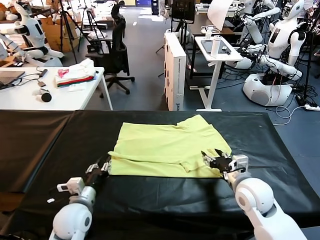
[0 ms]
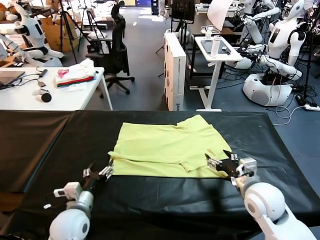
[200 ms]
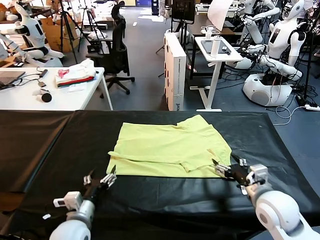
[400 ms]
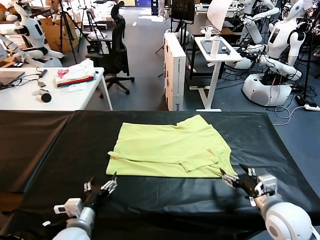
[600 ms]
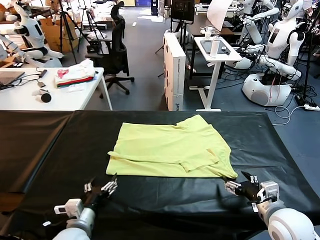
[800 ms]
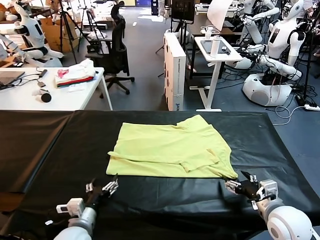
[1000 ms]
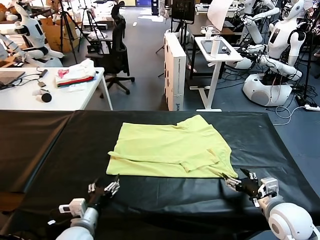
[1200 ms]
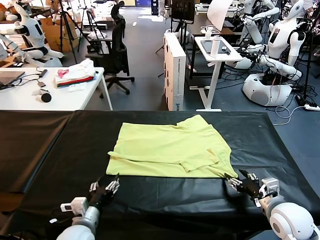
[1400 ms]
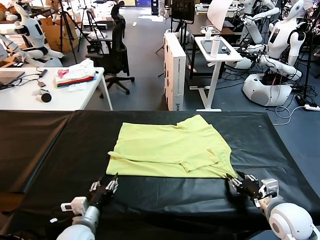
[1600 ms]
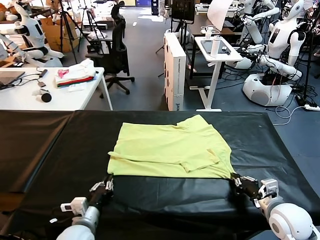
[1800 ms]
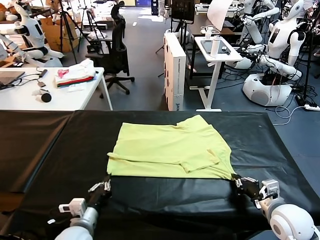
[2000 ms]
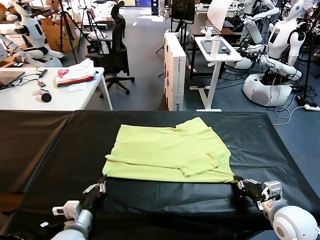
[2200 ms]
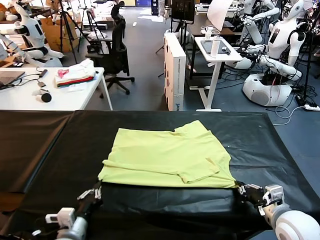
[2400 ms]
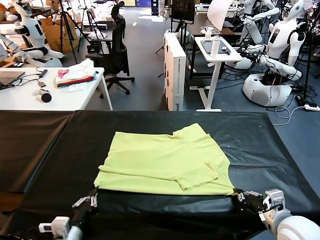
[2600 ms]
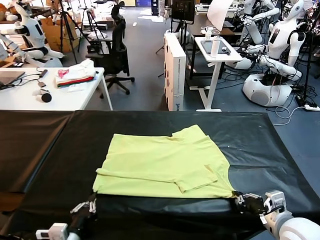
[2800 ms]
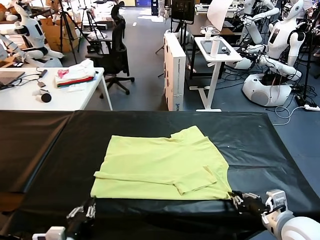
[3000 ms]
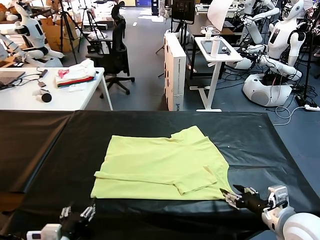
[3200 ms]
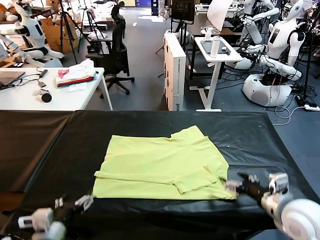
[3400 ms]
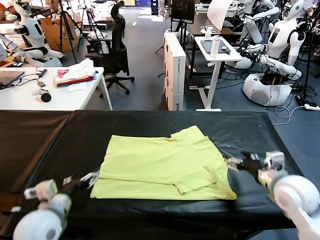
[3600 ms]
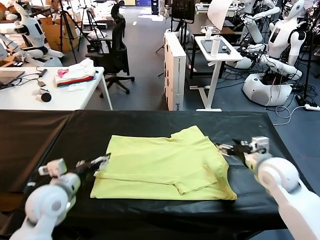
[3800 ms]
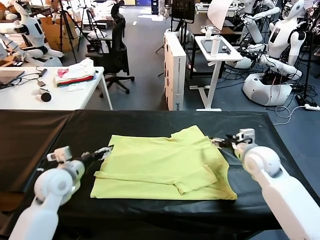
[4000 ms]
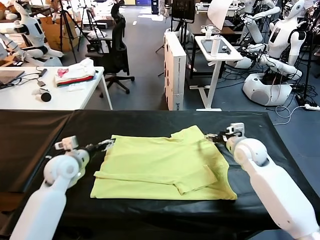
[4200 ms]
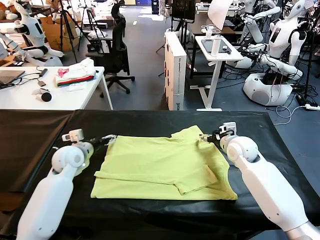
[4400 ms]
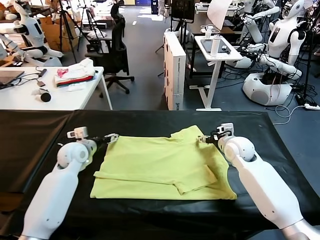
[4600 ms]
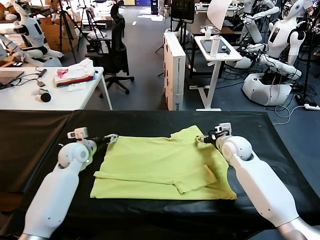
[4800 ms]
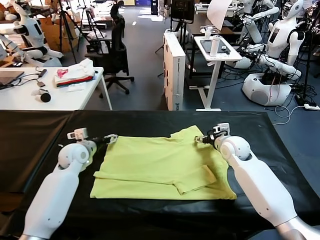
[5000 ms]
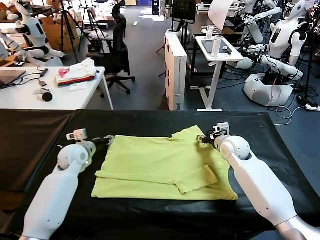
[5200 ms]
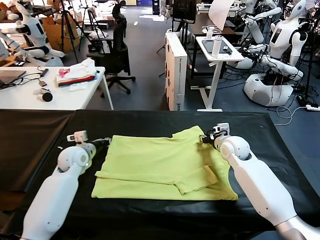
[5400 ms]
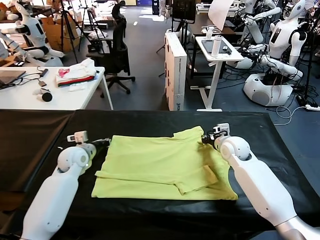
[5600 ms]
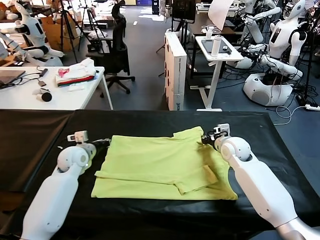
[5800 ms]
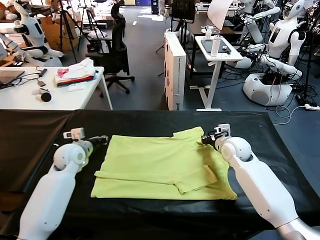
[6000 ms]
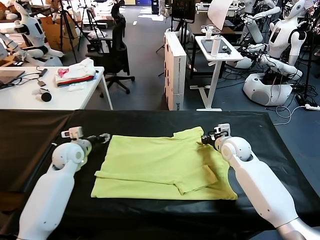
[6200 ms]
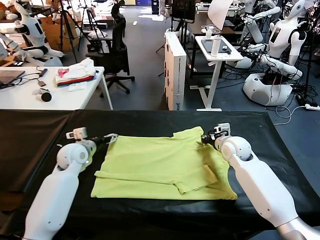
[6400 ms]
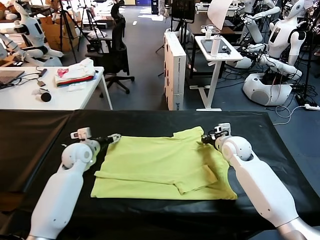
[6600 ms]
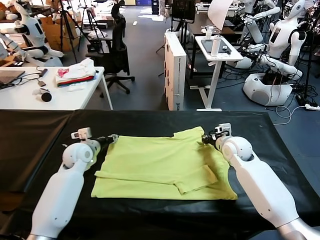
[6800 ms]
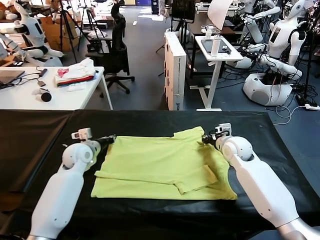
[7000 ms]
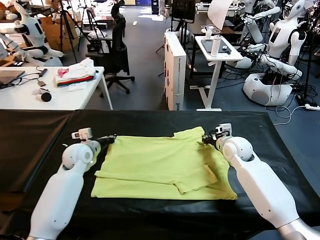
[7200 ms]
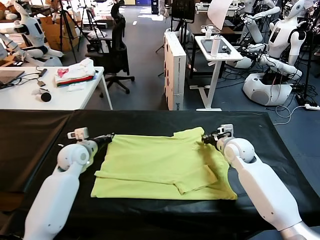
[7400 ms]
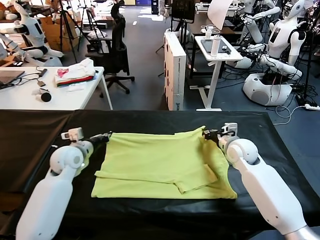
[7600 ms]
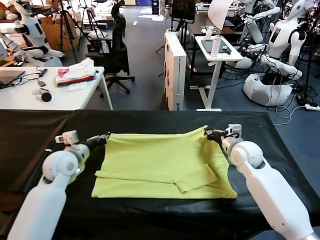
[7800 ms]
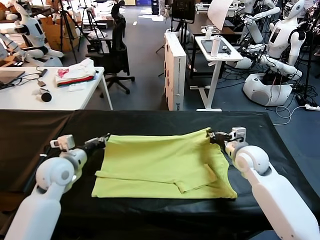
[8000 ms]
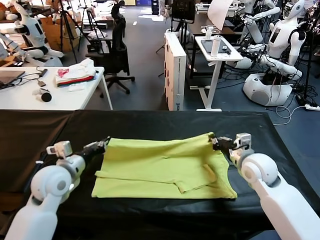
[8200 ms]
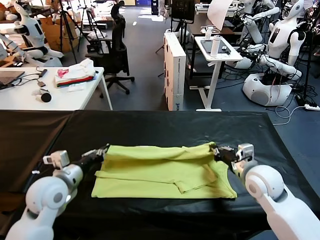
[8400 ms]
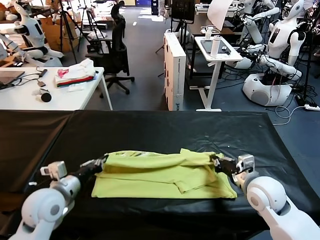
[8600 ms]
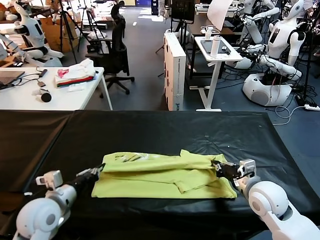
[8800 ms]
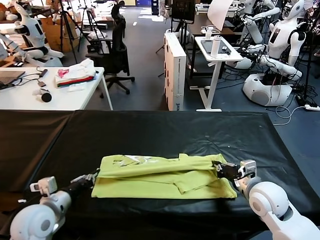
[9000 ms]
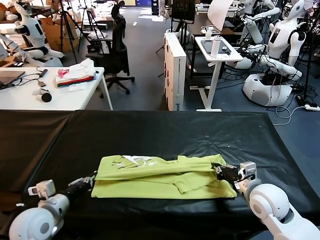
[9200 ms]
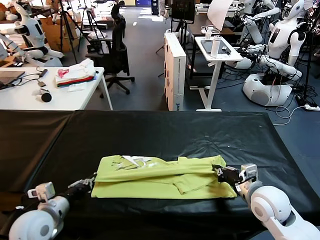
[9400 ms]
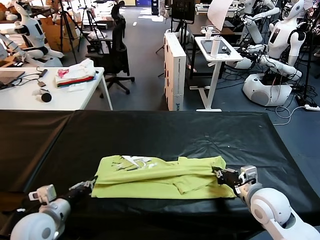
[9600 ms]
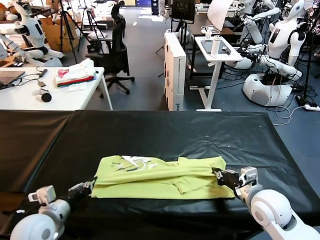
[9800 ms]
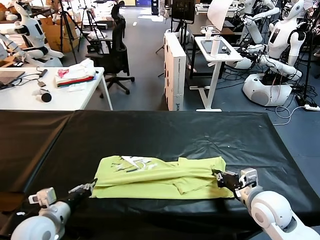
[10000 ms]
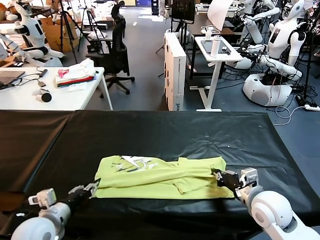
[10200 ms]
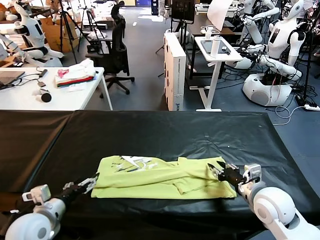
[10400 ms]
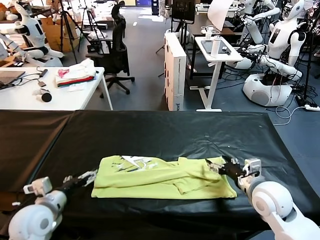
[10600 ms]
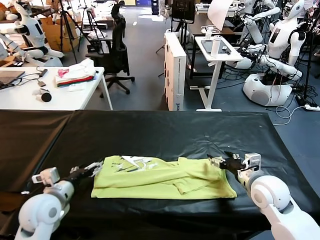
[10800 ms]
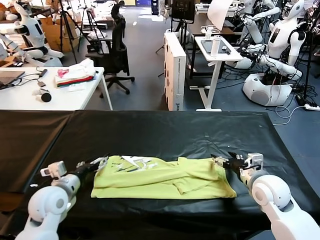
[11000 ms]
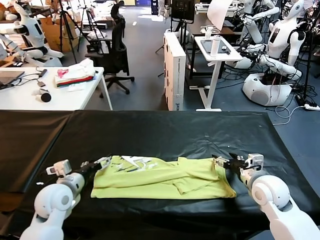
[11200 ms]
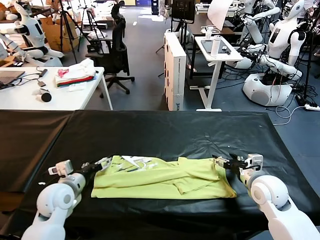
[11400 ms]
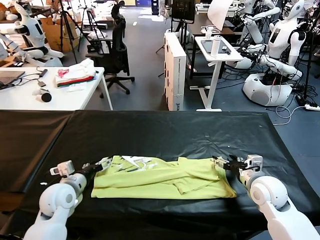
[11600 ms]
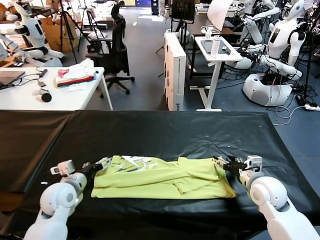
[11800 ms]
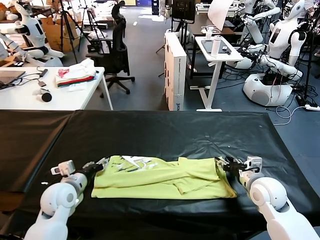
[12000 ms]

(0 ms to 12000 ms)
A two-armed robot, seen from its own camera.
Task of the whole recording: fold and organize the clothes.
Step, 200 ms - 3200 ms: Drag the clothes downward with both gripper.
Step, 3400 ms - 7200 ms: use both grippers simultaneously to clamp the upper edge of the clothing fabric.
Step, 7400 ms - 10400 ms: use both grippers to drag the upper edge of the fabric backward and fold it over the lower edge.
0 ms - 1600 ms: The right gripper travels to the right by roughly 5 cm, and closes its fingers. The left gripper ends up about 5 cm from where it was, and closes.
1600 ms - 3000 ms: The right gripper is displaced upward by some 10 cm, and opens. Meanwhile the left gripper travels backward and upward by about 10 cm, and opens its fingers.
3000 ms - 4400 ms: The grippers both shift forward by approximately 30 cm.
4400 ms - 6000 ms: The right gripper closes its fingers, while the left gripper closes its fingers.
6000 ms - 7600 ms: The right gripper shifts by about 5 cm, while the left gripper closes its fingers.
7600 ms - 9000 ms: The grippers both shift backward by about 15 cm.
9000 ms - 10400 ms: The right gripper opens up; the left gripper opens its fingers.
10400 ms - 12000 ms: The left gripper goes some 10 cm forward, and closes its fingers; the right gripper ends up approximately 5 cm from where it was, and closes.

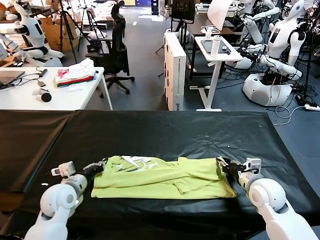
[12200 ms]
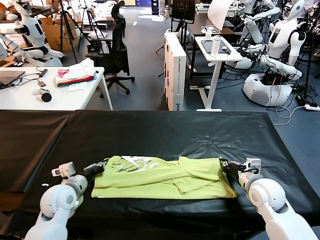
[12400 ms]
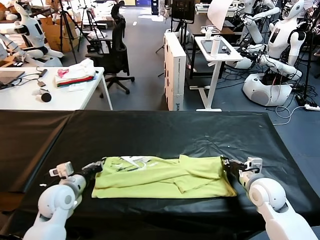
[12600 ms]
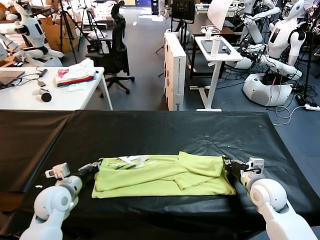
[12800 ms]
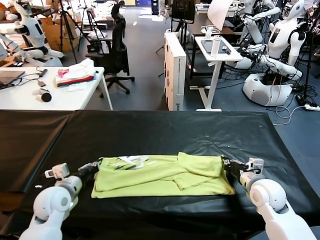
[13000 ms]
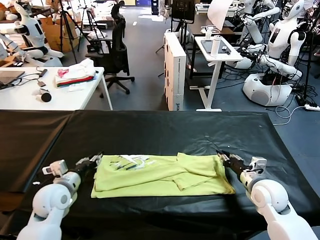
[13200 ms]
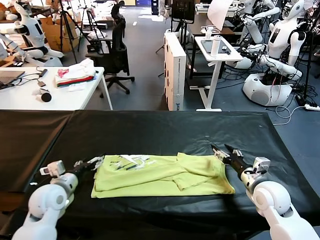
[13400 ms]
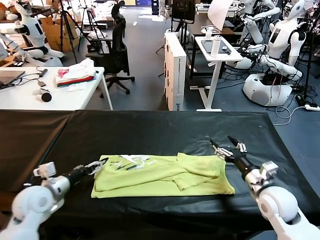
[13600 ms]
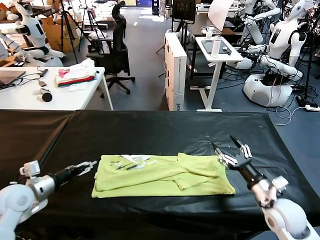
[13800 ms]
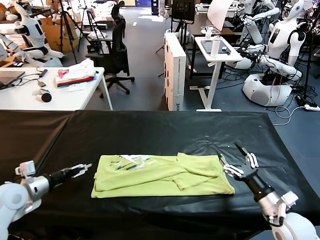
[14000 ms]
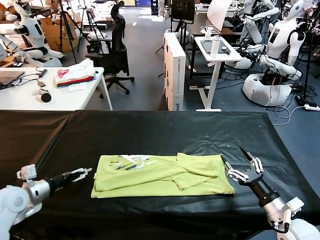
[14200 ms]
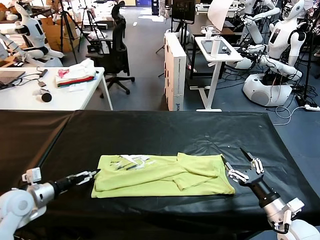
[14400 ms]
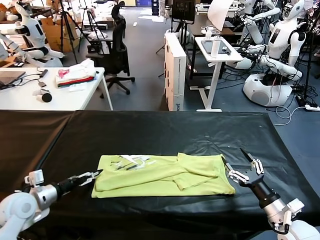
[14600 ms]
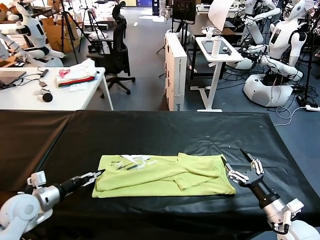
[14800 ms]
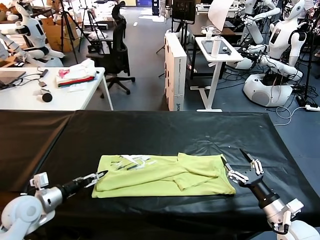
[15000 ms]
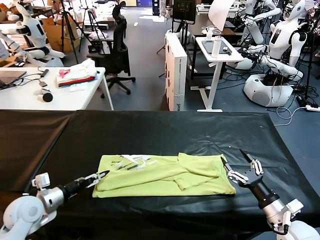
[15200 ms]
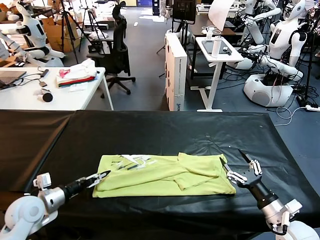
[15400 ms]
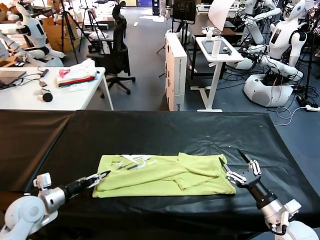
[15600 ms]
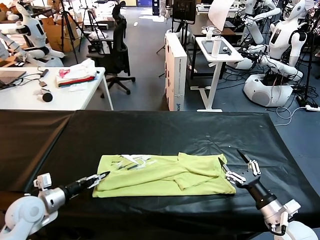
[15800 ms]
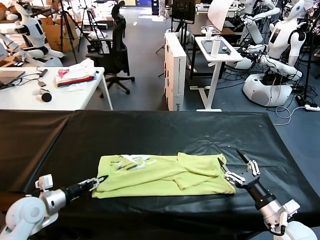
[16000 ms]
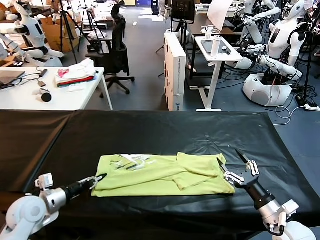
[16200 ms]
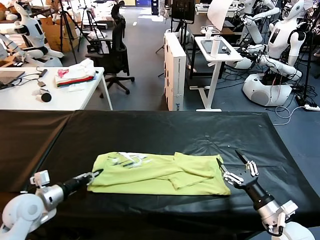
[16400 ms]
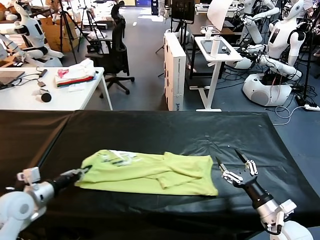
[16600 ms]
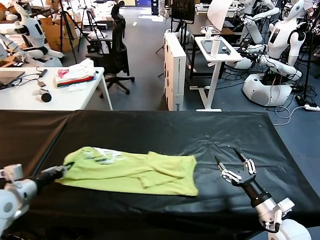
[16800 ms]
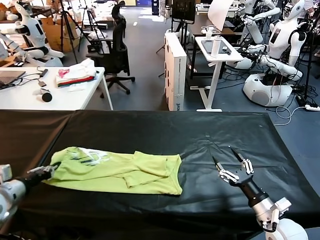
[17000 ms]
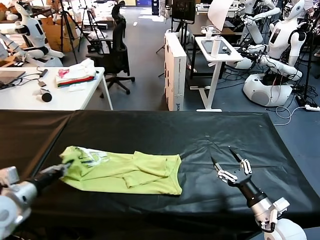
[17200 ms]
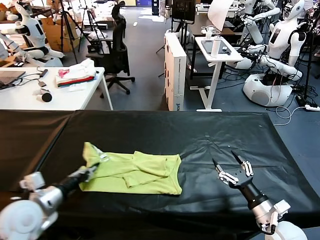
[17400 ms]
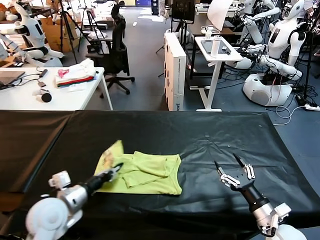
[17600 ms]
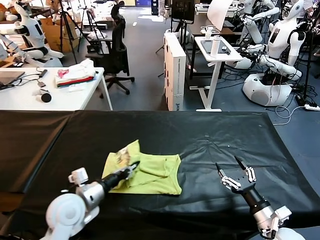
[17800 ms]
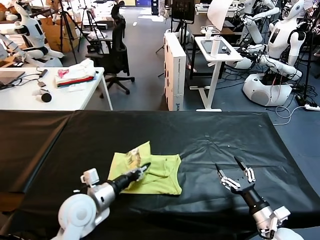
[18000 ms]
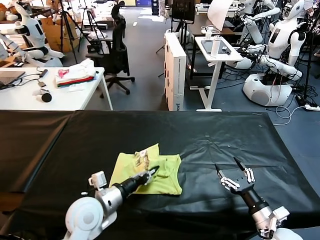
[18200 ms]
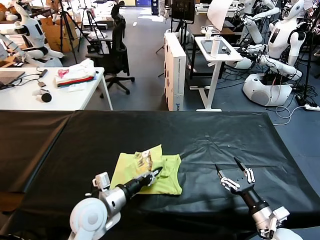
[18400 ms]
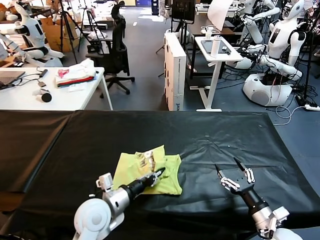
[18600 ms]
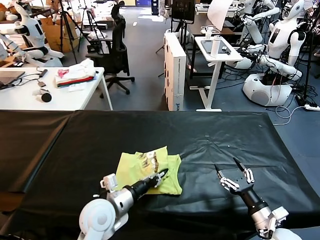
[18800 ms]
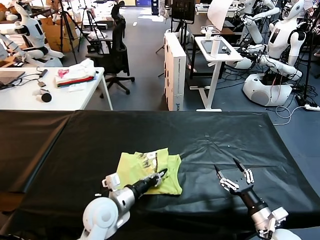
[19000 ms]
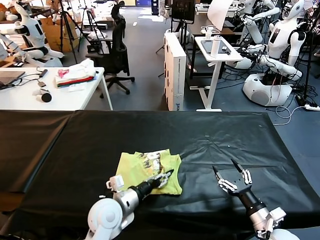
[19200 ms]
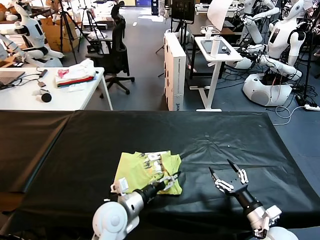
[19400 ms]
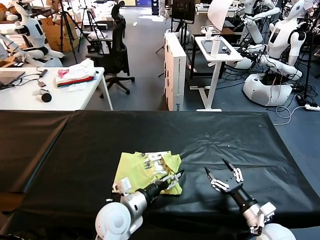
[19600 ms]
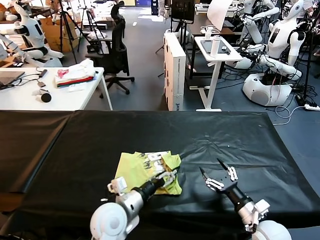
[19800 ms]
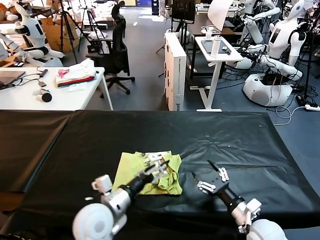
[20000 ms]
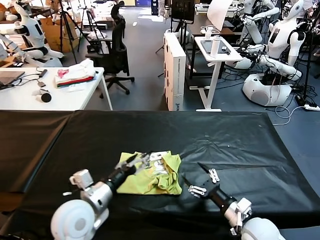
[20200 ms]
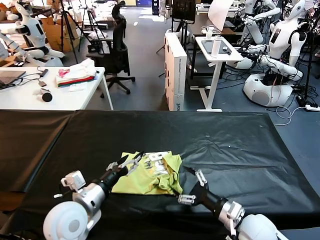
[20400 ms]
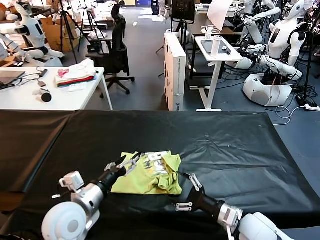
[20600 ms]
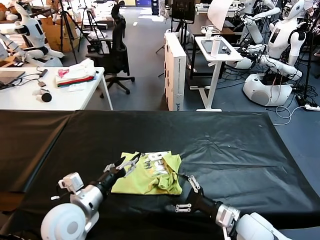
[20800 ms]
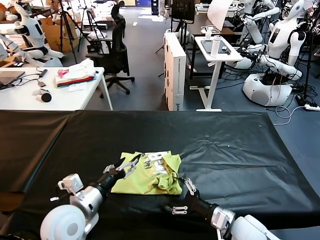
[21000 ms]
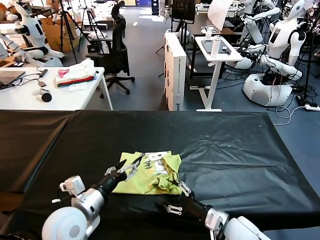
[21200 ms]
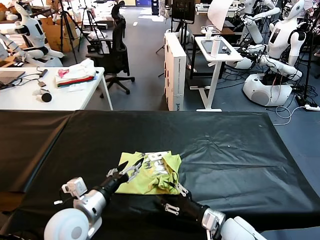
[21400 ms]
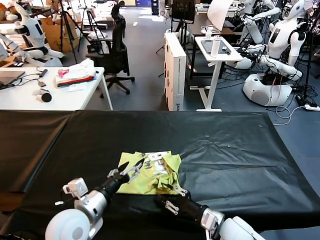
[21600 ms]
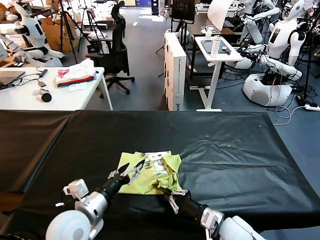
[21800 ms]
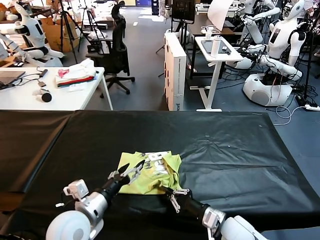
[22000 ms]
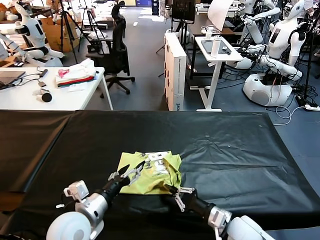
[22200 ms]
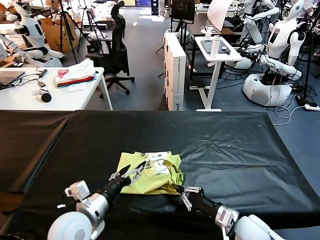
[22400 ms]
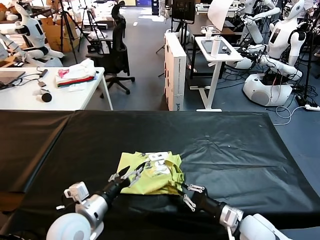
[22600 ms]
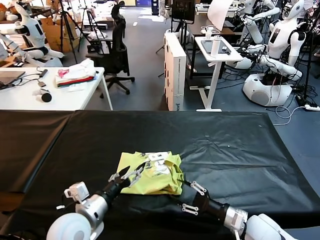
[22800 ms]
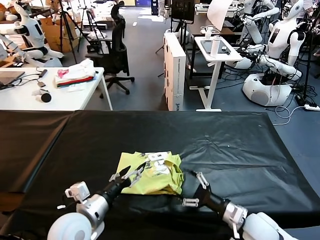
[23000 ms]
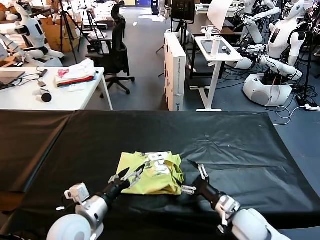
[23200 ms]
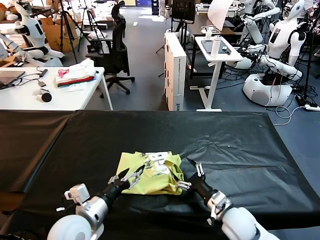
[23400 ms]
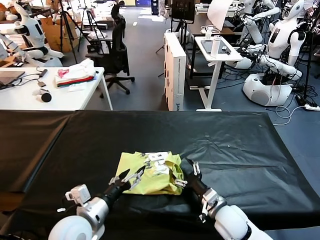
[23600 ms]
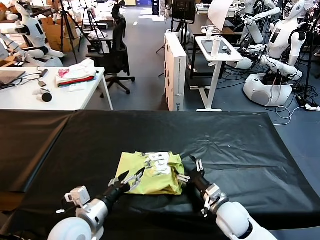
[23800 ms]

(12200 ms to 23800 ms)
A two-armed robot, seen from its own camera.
Task of the whole recording: fold and organize the clothes.
Step, 12200 ms - 16200 ms: use the left gripper to clamp the left edge of the fabric.
Step, 16400 ms - 19600 ms: use the left gripper to drag the left edge of the fabric to the left and folds it over the right edge.
12200 ms - 13600 ms: The left gripper goes some 5 cm to the left, and opens, while the right gripper heads backward, covering some 5 cm, and opens its fingers.
13600 ms - 15000 ms: The right gripper goes roughly 5 cm backward.
15000 ms - 16600 ms: The left gripper closes its fingers.
16600 ms - 18000 ms: The left gripper goes roughly 20 cm to the right.
18000 ms - 19400 ms: The left gripper travels to the right by roughly 10 cm, and opens its fingers.
19400 ms - 21000 ms: The right gripper travels to the left by about 10 cm. The left gripper moves to the left and upward, approximately 10 cm.
21000 ms - 22400 ms: The right gripper closes its fingers.
22400 ms - 23800 ms: The right gripper shifts by some 5 cm, and opens up.
